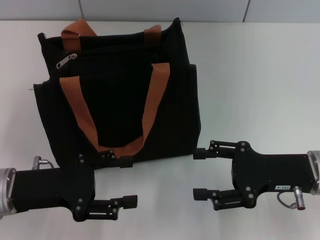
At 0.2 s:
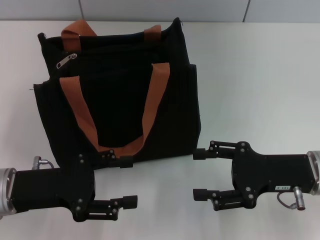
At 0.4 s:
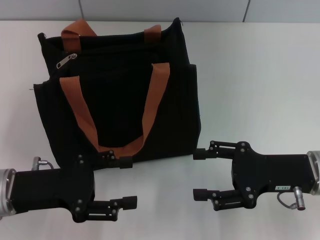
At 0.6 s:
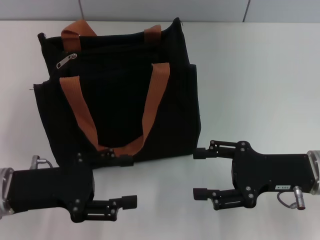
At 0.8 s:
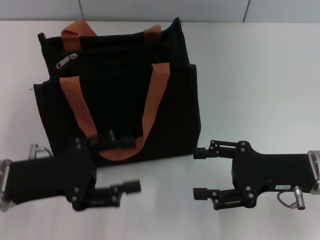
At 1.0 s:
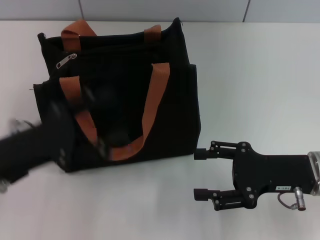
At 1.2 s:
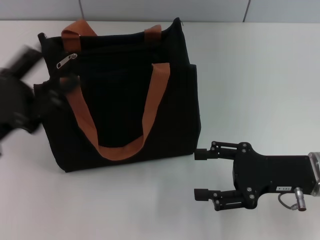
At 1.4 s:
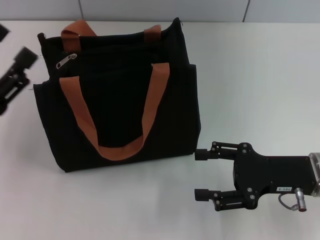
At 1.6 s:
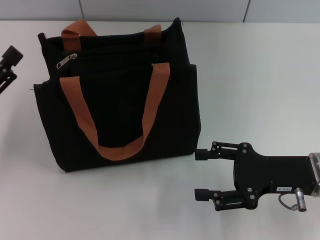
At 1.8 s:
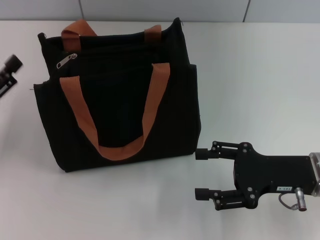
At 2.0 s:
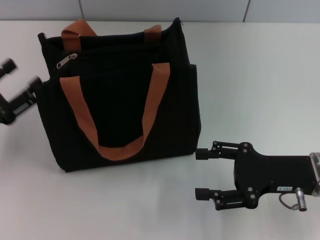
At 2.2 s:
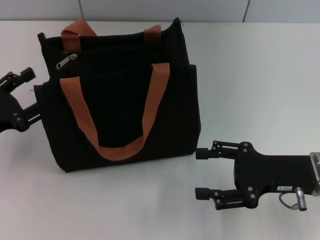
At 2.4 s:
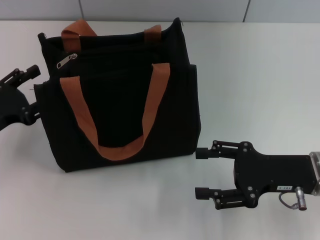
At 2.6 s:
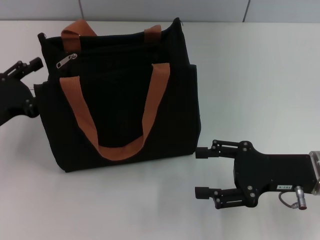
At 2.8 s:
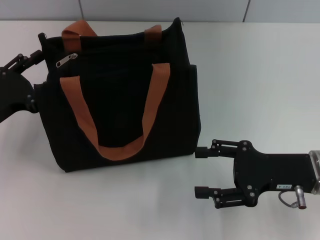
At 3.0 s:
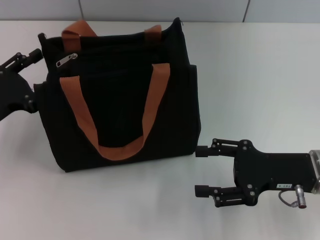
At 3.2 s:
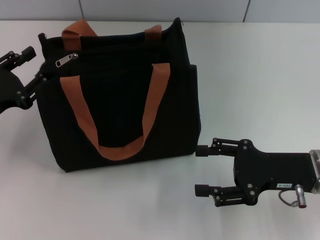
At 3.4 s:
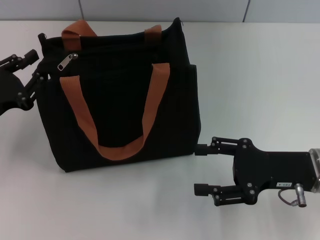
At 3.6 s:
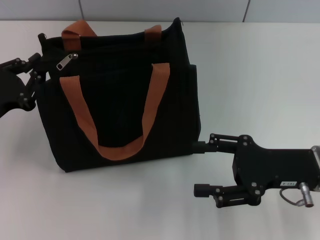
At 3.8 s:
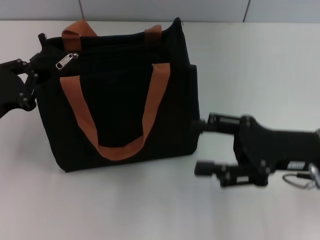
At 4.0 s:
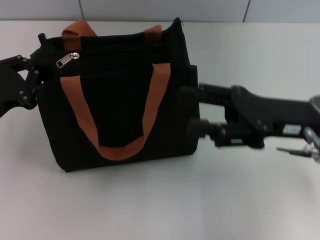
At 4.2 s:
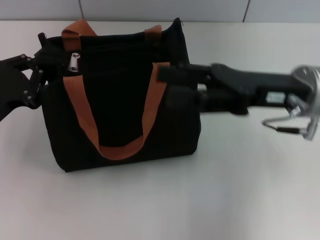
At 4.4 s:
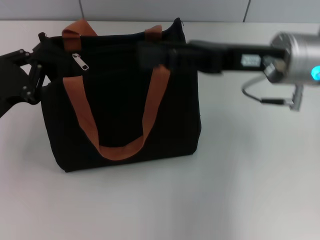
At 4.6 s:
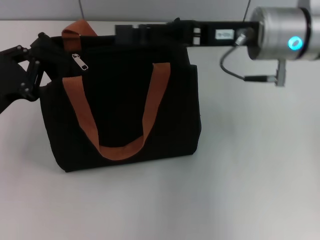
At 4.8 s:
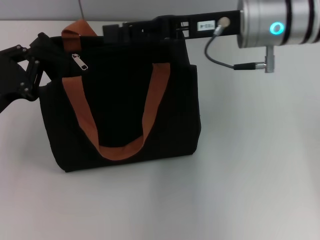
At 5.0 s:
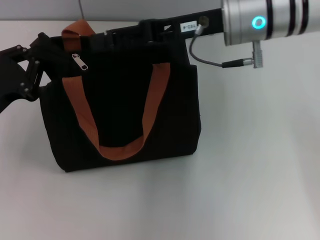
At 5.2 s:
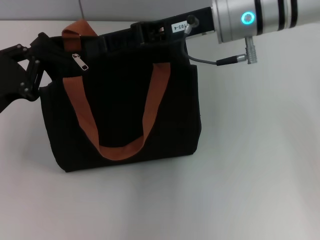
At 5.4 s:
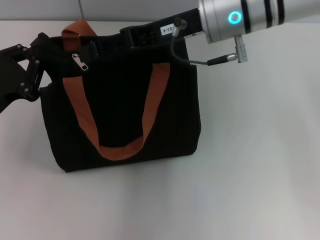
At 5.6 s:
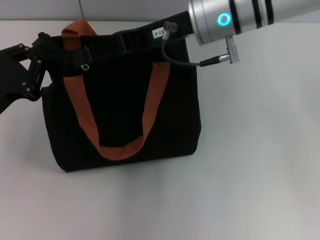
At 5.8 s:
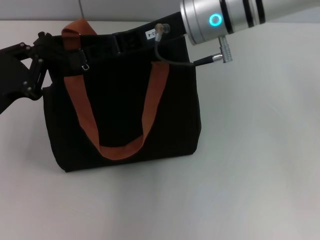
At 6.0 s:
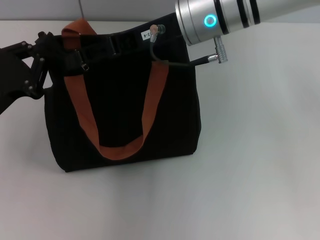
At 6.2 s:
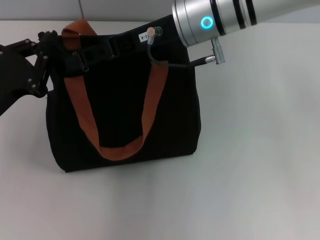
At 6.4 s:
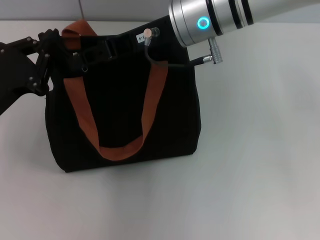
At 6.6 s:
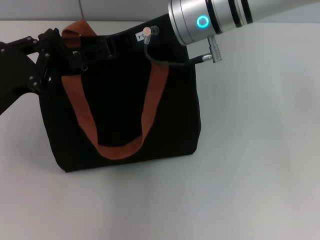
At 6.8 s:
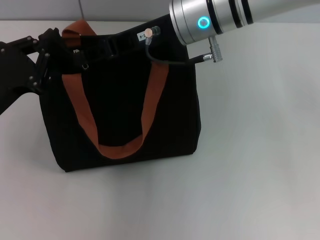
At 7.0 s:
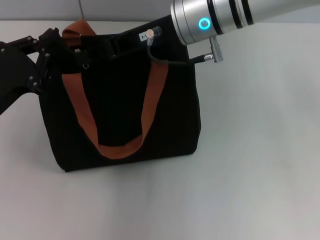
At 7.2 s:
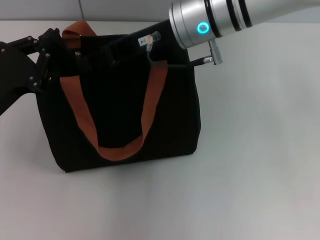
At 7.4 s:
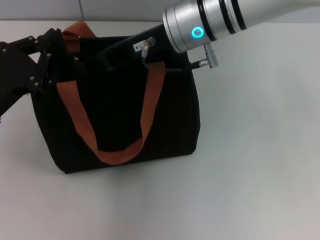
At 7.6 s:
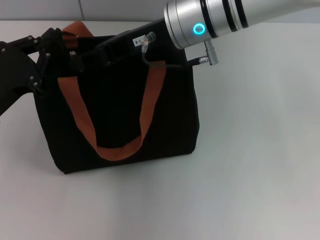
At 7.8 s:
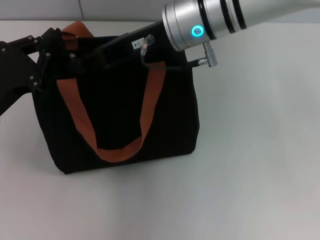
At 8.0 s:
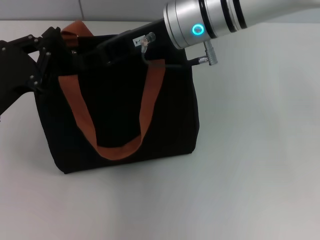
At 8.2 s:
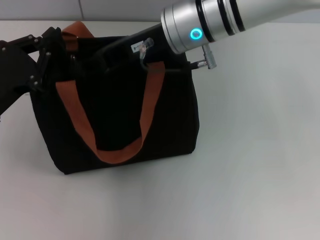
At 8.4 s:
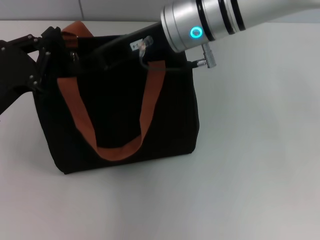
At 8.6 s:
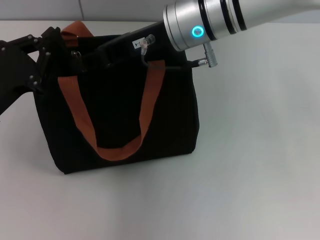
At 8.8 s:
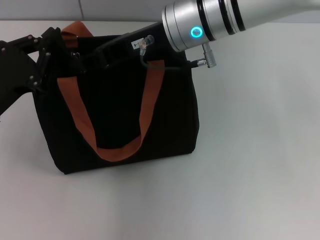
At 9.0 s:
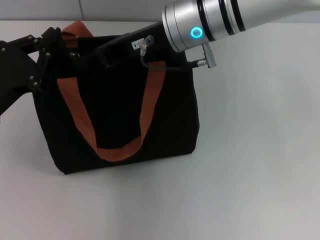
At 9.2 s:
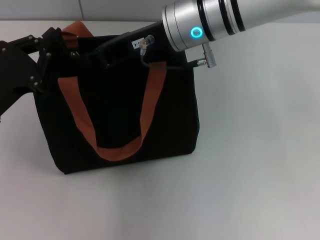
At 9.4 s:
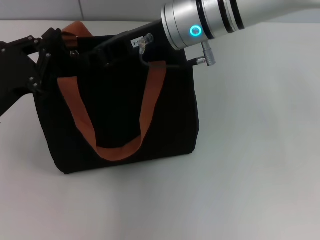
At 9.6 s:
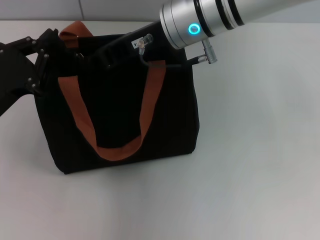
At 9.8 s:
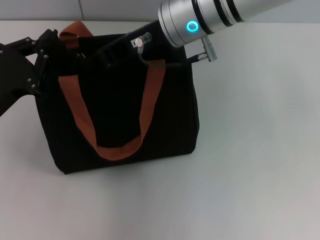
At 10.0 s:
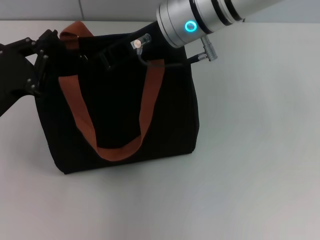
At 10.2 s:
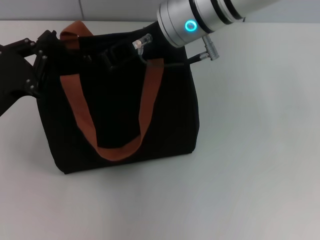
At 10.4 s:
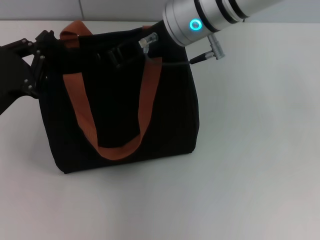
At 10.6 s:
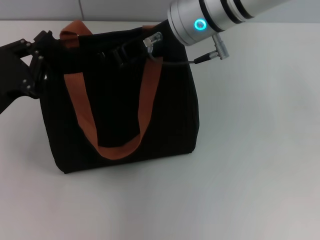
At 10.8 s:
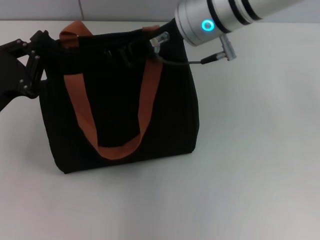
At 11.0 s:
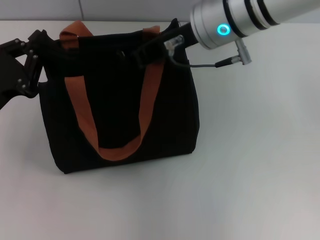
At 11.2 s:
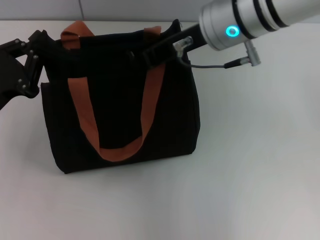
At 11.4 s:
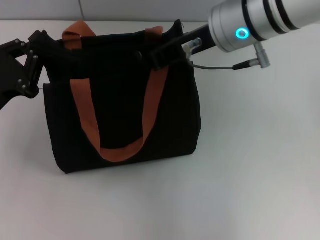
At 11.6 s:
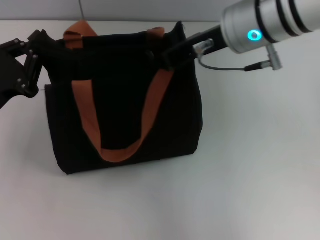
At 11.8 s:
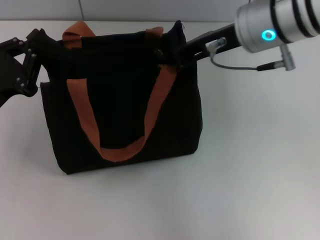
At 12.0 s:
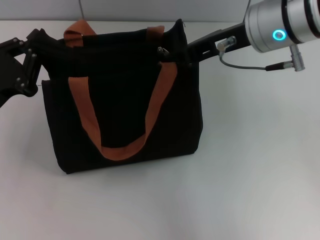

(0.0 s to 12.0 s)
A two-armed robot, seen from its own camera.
0.0 s - 1.6 s: The left gripper travels to the left by some 5 cm.
3.0 s - 4.4 s: The right gripper heads upward, forward and to the left, covering about 15 cm. Meanwhile the left gripper closes its fingers.
4.4 s - 6.0 s: The right gripper moves to the left and forward, about 10 cm.
6.0 s - 7.6 s: The right gripper closes up.
7.6 s - 9.0 s: Both grippers stay put.
9.0 s - 10.4 s: The grippers move only a little.
10.4 s - 12.0 s: The right gripper travels to the right by some 10 cm.

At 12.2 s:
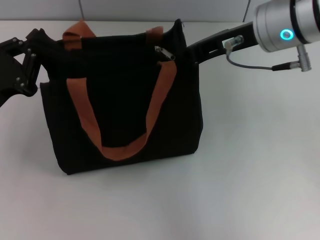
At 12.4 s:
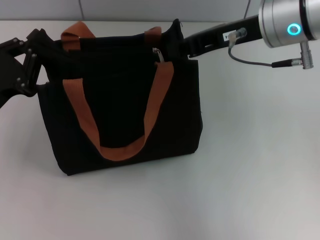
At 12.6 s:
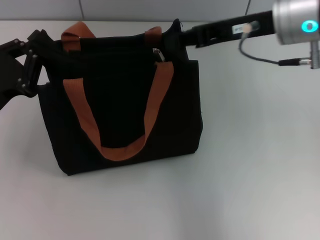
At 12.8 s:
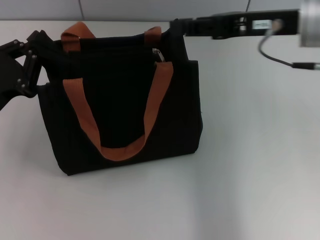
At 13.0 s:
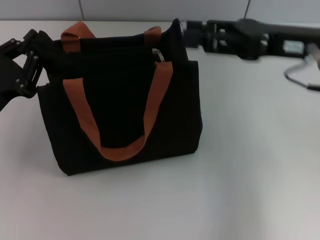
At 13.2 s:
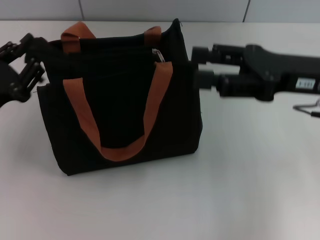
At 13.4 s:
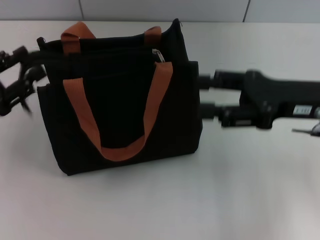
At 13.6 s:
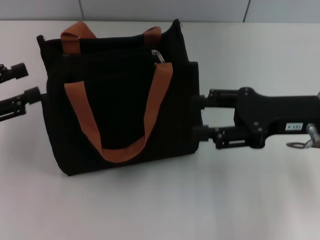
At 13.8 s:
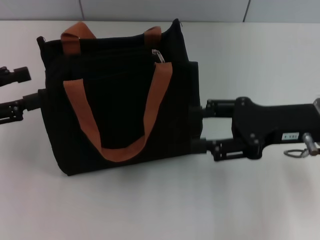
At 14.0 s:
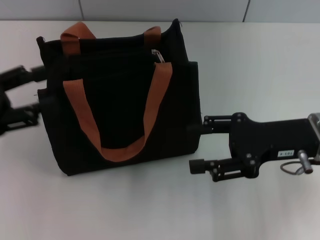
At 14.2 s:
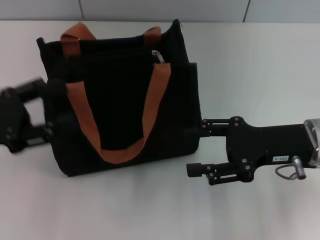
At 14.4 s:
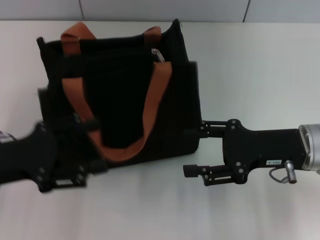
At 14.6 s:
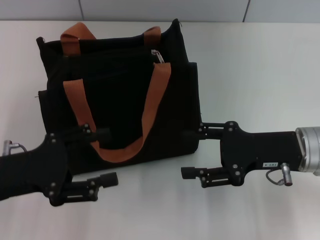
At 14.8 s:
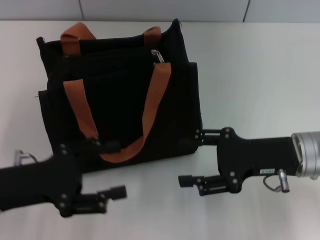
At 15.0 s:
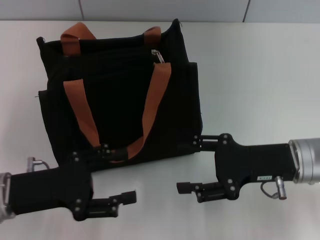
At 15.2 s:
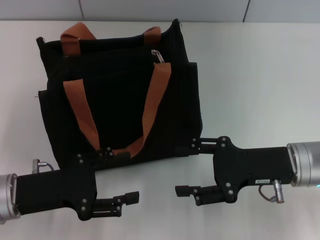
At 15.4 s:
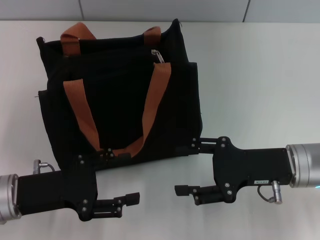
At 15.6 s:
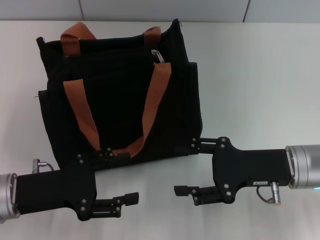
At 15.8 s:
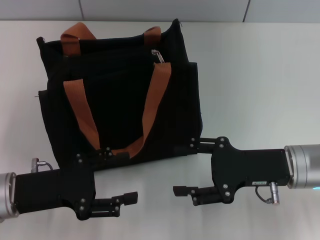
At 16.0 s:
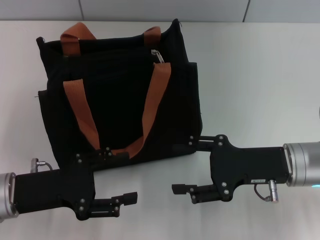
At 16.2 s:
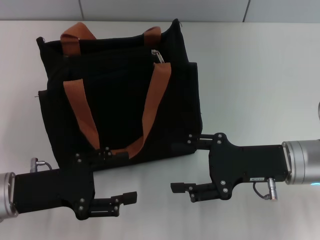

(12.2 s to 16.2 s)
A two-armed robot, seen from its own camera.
Step, 12.4 s - 13.4 s: Grab the zipper with your left hand.
12.2 s - 13.6 s: The right gripper heads downward, to the right and backward, covering approximately 15 cm, and opens. The left gripper goes roughly 5 cm to the left, and opens up.
13.6 s - 14.8 s: The right gripper heads downward, covering approximately 5 cm. Meanwhile the left gripper goes about 10 cm to the right and downward.
14.8 s - 16.2 s: The grippers stay close to where they were, moving slightly.
